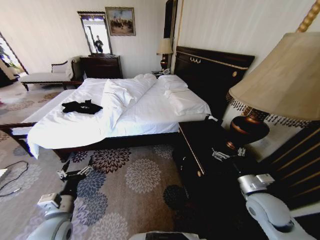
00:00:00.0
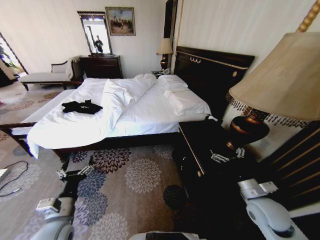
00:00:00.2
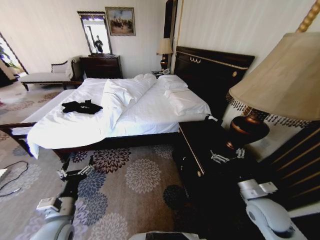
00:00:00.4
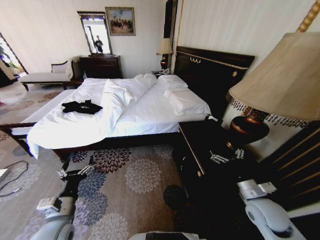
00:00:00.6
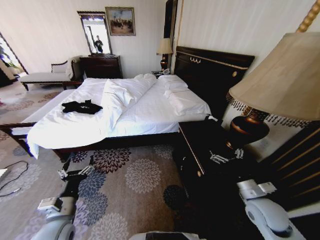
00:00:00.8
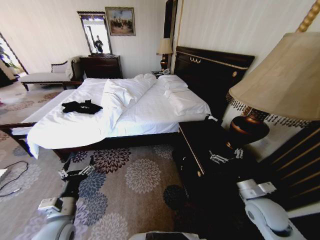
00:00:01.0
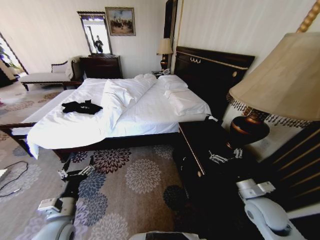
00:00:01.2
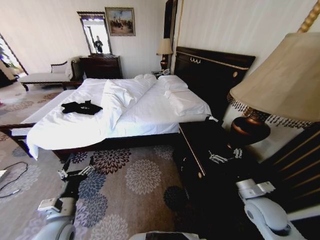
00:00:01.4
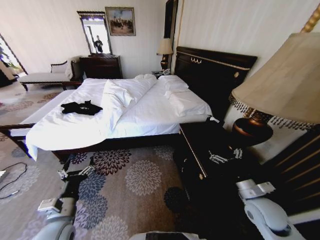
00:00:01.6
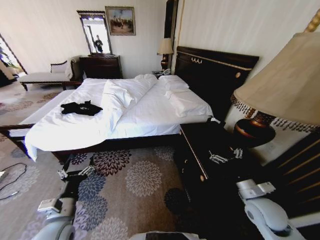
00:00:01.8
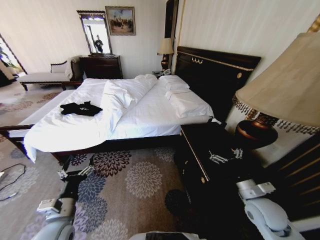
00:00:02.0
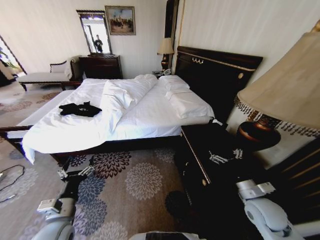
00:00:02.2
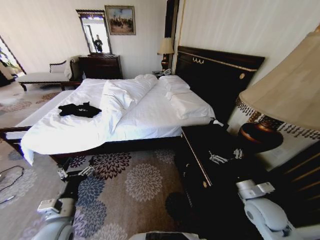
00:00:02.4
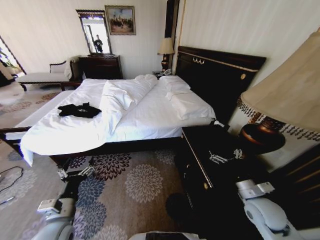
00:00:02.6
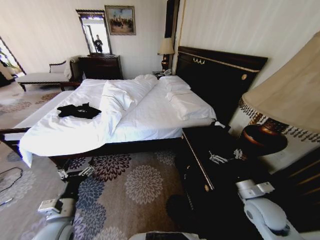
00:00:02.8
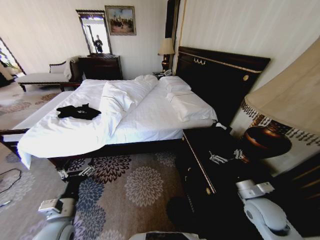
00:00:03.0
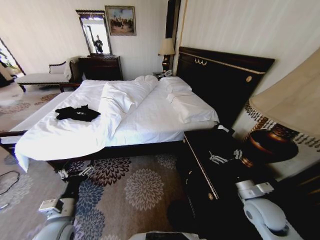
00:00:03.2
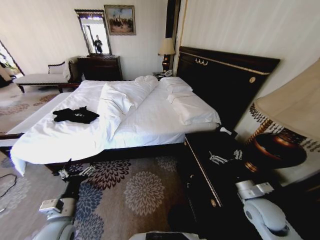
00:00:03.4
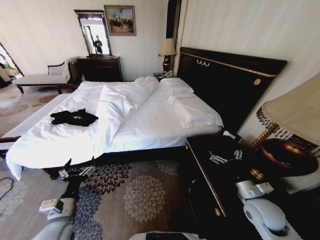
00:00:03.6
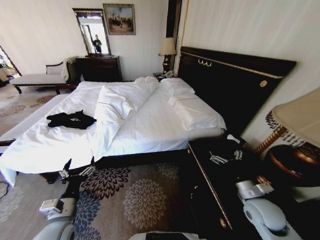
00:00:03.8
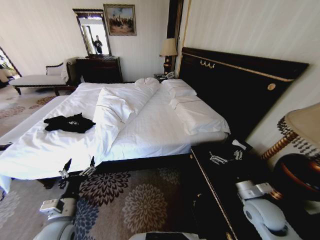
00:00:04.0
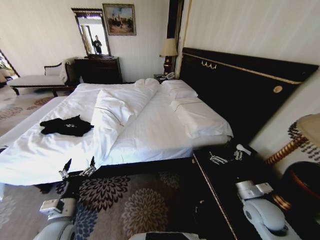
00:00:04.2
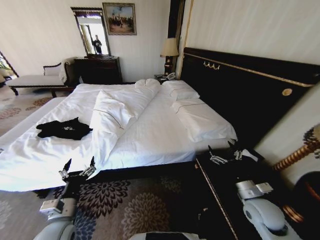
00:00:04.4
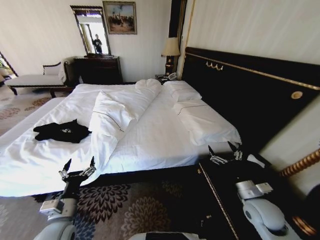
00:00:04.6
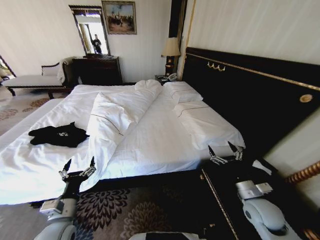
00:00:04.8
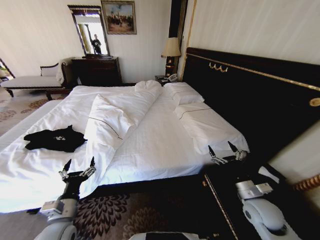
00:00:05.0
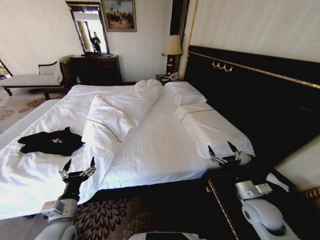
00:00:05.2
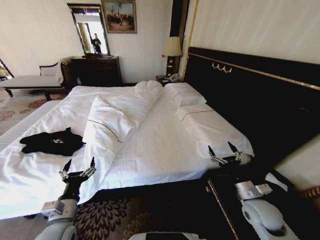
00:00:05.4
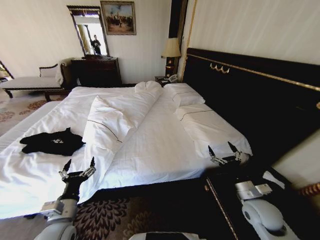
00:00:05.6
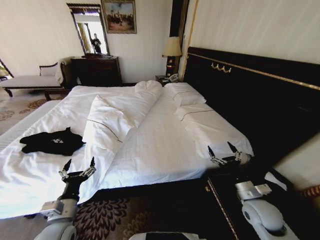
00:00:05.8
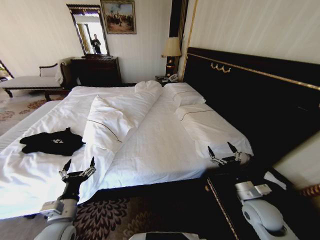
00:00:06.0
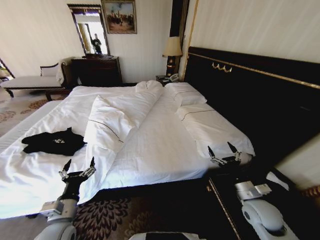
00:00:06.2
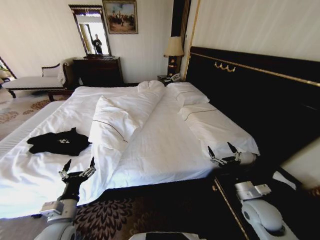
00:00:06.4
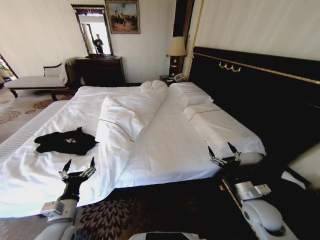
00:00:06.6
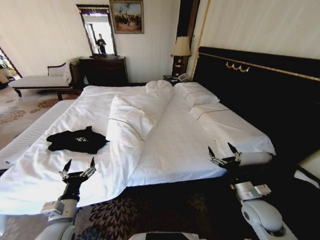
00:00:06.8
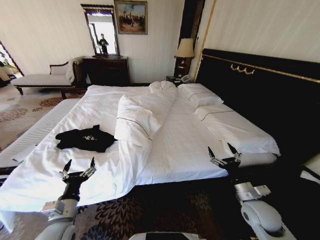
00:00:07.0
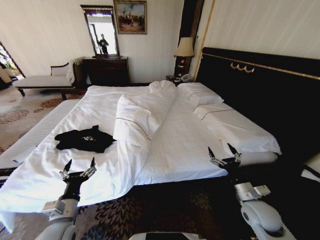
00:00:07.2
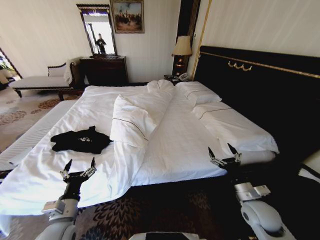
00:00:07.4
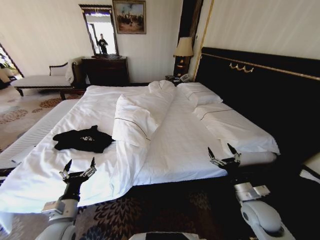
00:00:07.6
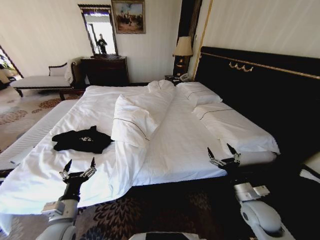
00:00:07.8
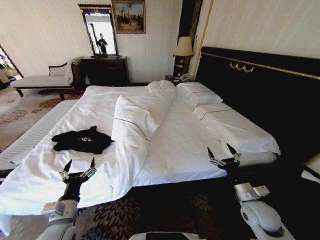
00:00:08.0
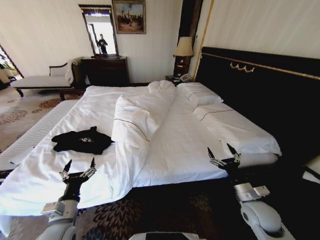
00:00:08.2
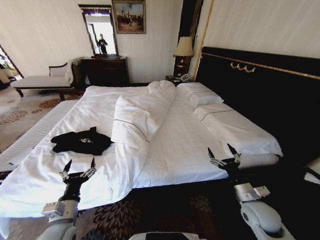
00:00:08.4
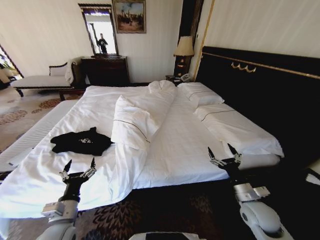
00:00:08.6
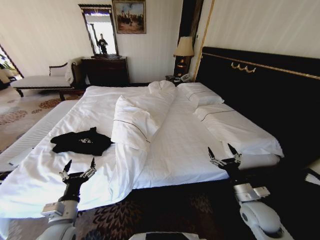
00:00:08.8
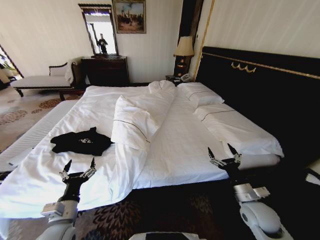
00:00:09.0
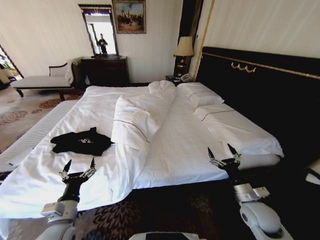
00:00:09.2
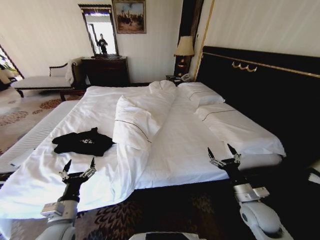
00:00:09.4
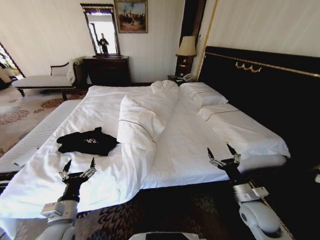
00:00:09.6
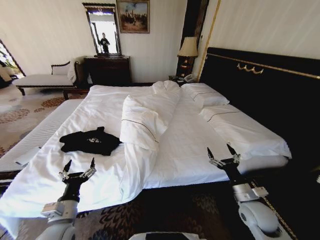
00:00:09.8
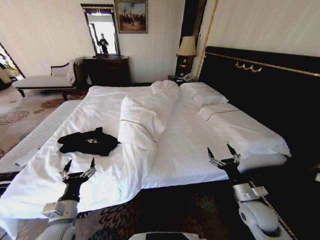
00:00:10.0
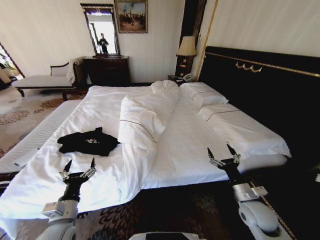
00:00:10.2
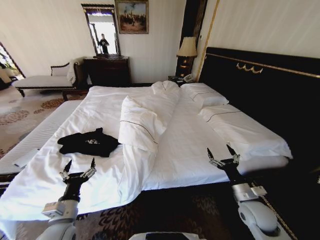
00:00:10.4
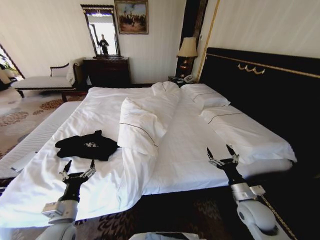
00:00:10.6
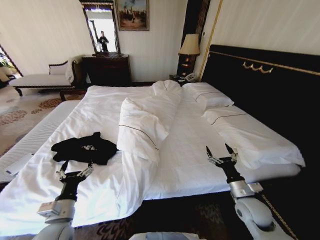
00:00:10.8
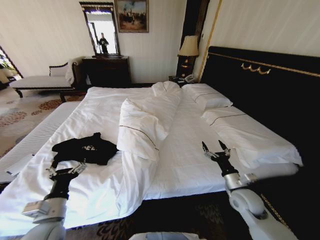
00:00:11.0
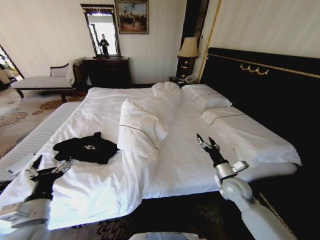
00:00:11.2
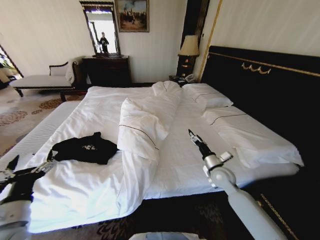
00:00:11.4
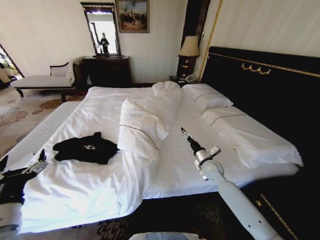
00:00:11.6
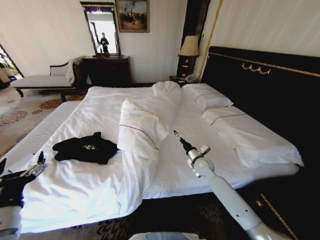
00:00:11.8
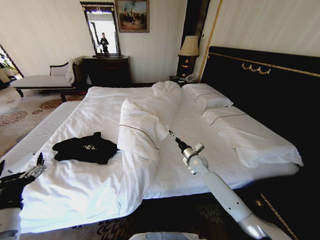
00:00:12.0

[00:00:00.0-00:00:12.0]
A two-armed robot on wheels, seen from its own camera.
Task of the whole recording: Fold the clothes on the bed.
00:00:07.6 to 00:00:10.4: The two grippers keep their place.
00:00:10.4 to 00:00:12.0: The left gripper goes approximately 10 cm upward and to the left, while the right gripper shifts roughly 25 cm forward and to the left.

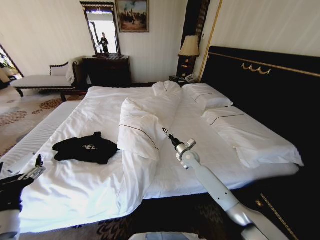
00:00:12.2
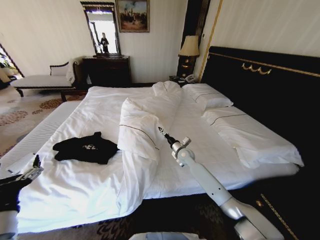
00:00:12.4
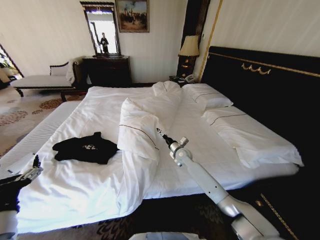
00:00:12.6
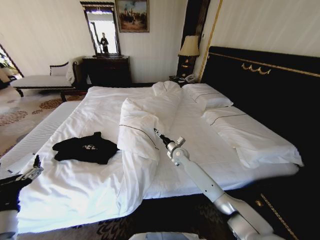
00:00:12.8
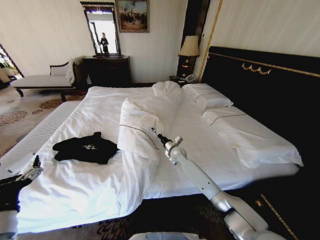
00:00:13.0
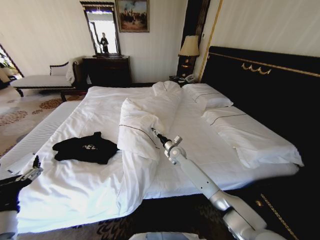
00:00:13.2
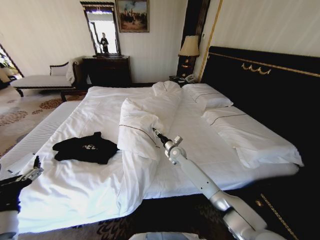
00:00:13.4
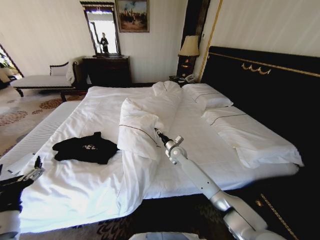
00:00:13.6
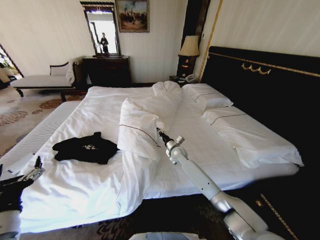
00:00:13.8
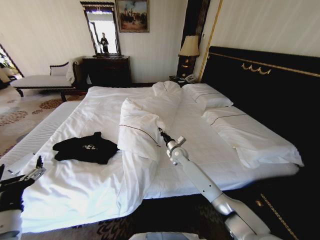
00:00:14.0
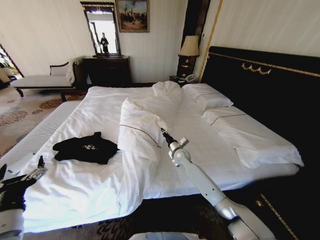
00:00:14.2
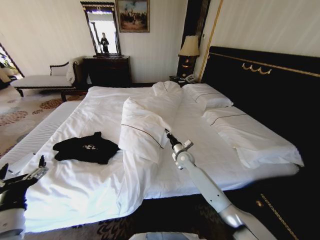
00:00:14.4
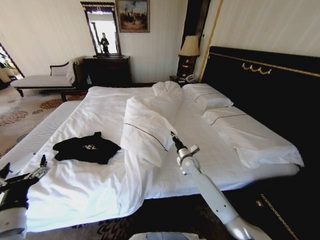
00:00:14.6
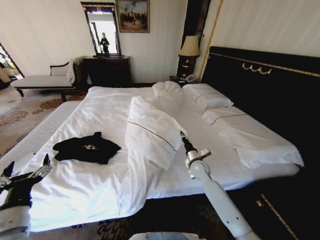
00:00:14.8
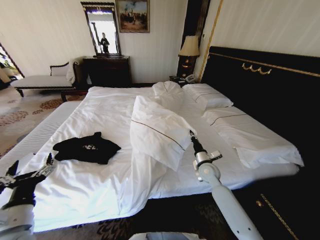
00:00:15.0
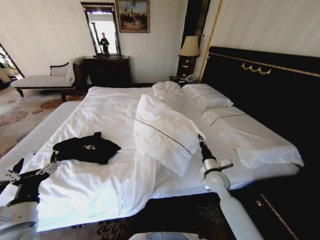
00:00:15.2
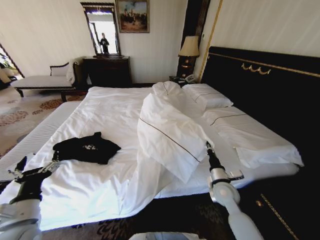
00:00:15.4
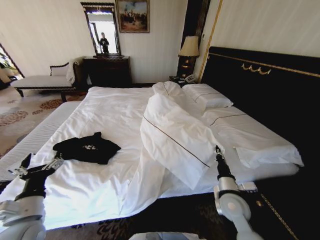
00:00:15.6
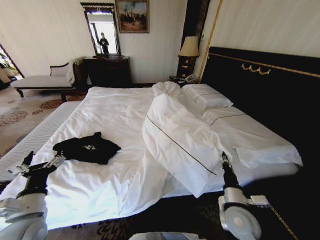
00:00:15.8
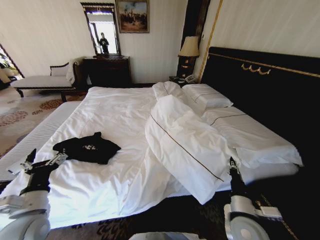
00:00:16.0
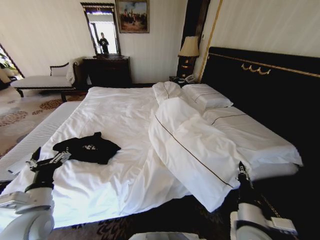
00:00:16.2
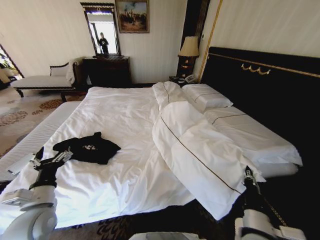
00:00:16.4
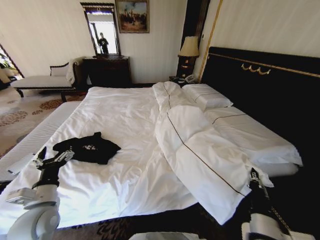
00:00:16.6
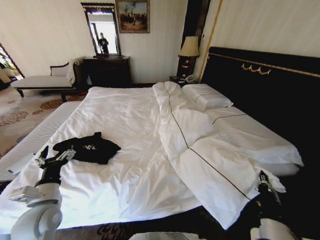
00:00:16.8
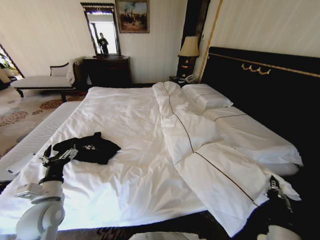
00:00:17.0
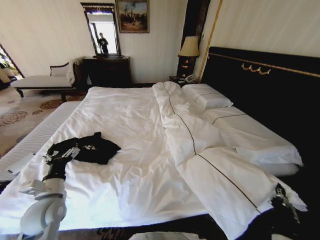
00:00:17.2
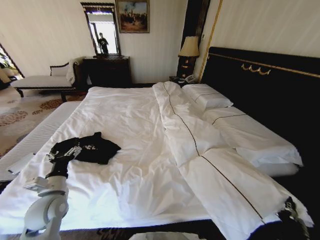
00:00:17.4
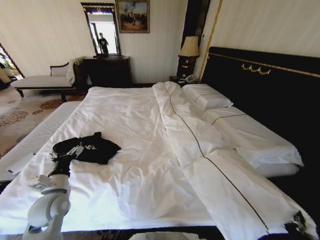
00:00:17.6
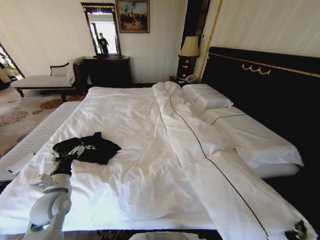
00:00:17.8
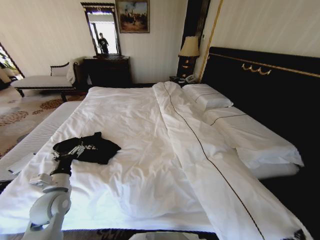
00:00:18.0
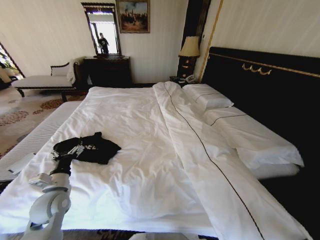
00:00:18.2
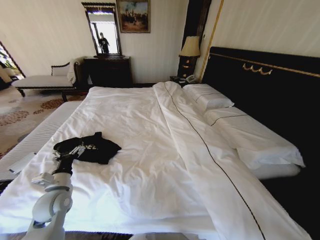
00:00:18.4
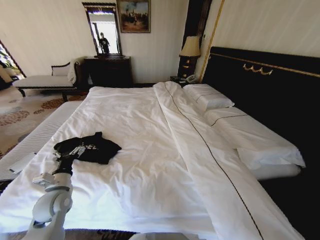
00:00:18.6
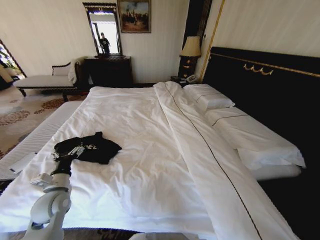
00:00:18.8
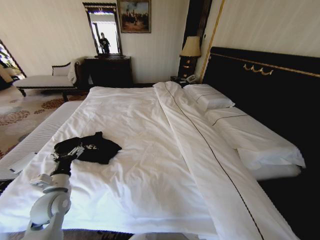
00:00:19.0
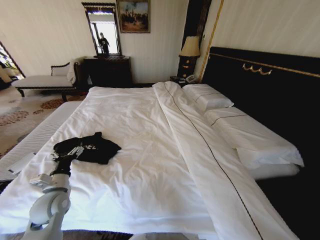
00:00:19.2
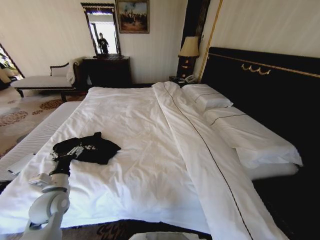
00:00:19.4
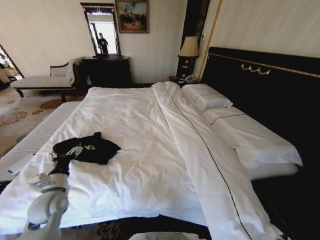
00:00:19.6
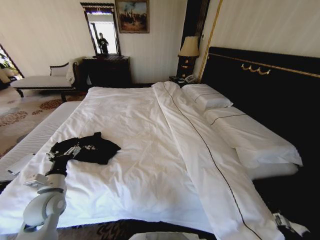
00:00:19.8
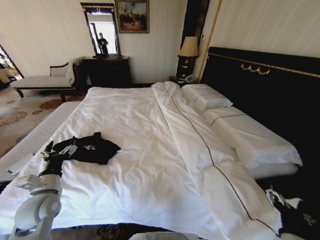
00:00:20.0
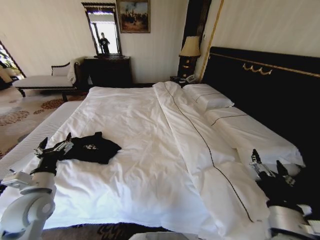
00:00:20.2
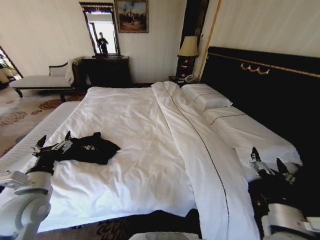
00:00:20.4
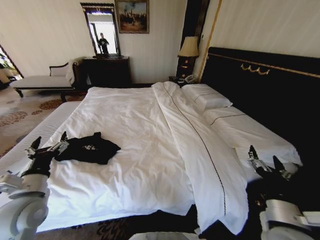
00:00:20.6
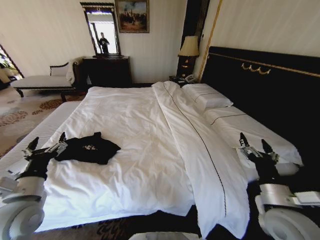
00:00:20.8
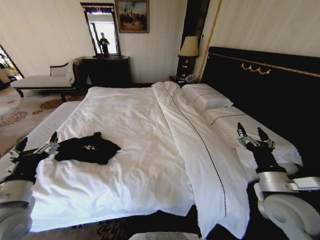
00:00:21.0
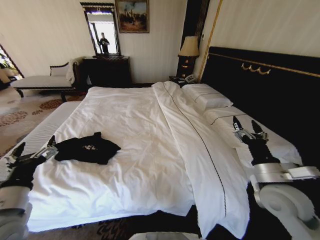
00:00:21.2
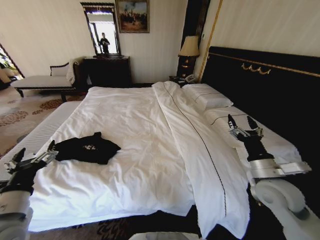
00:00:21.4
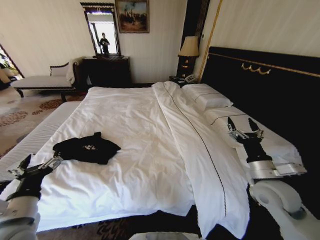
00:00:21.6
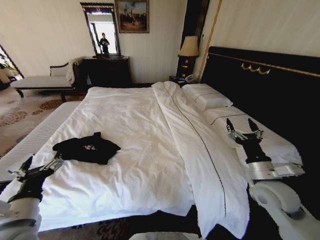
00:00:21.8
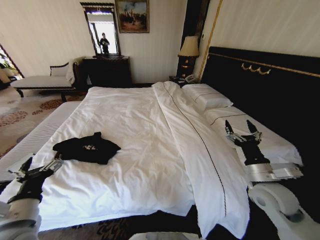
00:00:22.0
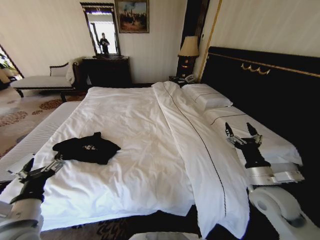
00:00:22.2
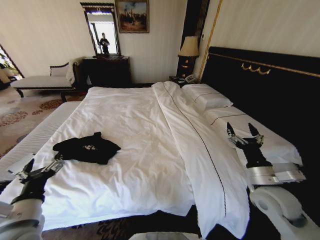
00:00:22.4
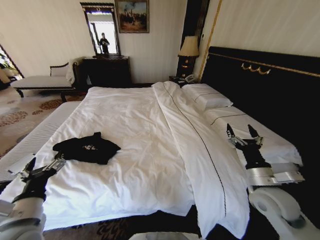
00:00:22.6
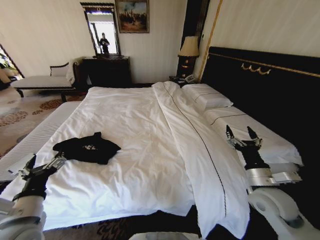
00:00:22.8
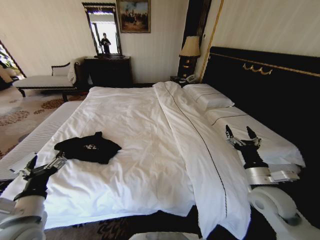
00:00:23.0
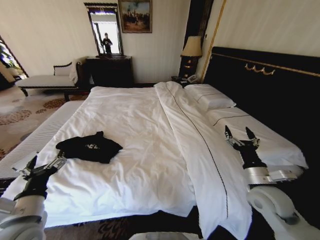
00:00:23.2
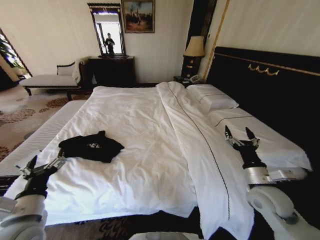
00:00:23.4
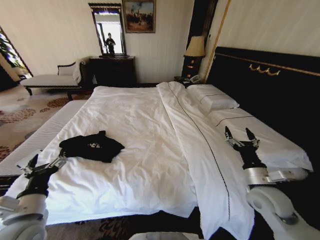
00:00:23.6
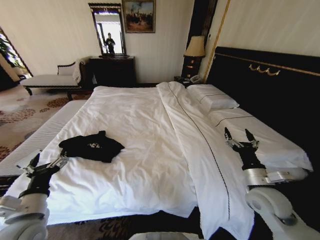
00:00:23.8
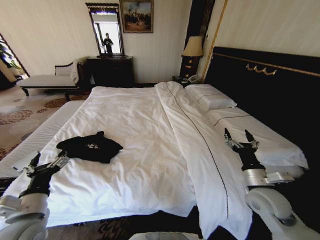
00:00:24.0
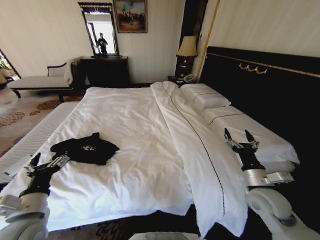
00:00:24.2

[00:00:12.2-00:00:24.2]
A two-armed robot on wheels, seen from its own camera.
Task of the whole recording: Fold the clothes on the bed.
00:00:12.2 to 00:00:13.8: The right gripper shifts approximately 5 cm to the left, and closes up.
00:00:13.8 to 00:00:15.2: The right gripper shifts about 20 cm backward and to the right.
00:00:15.2 to 00:00:16.6: The left gripper moves forward, approximately 5 cm, while the right gripper is displaced backward by some 20 cm.
00:00:16.6 to 00:00:18.2: The left gripper heads forward, covering some 5 cm, while the right gripper travels backward and downward by some 15 cm.
00:00:18.2 to 00:00:19.8: The right gripper travels downward and back again, approximately 5 cm each way, and opens its fingers.
00:00:19.8 to 00:00:21.2: The right gripper is displaced forward and upward by roughly 25 cm. Meanwhile the left gripper is displaced upward and backward by some 15 cm.
00:00:21.2 to 00:00:24.2: There are only small adjustments of the grippers.
